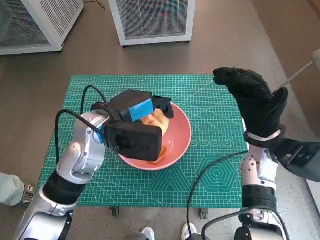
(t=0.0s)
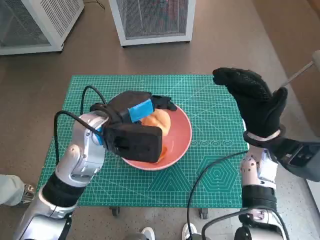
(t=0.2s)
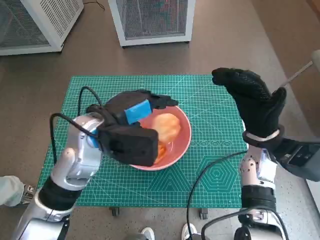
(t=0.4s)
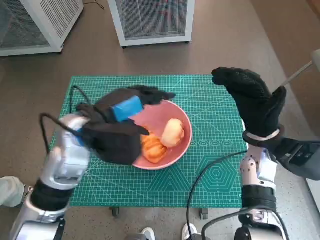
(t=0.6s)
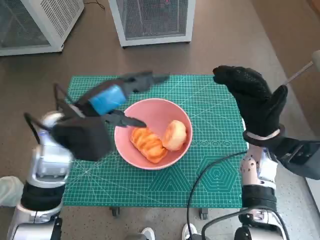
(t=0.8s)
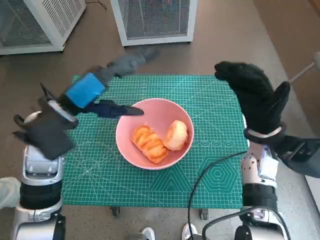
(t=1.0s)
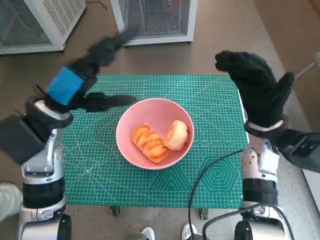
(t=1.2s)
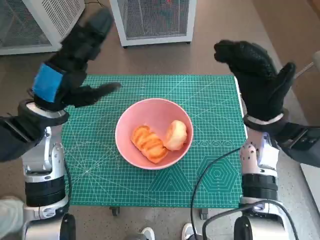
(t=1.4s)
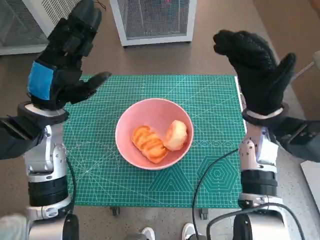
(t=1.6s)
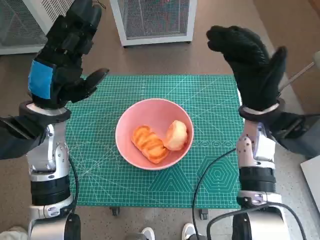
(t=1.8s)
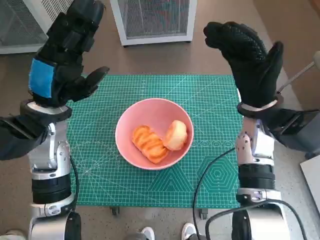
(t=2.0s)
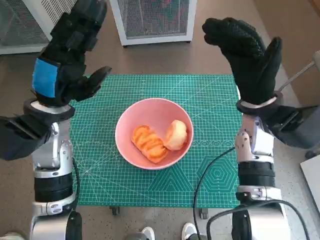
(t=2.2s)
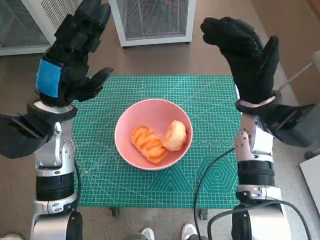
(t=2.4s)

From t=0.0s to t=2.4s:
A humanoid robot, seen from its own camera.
Task of the whole recording: Push the bowl into the center of the table and put the bread into the bowl.
From t=0.0s to t=1.2s: The left hand travels to the left by roughly 5 cm.
From t=1.2s to t=2.4s: The right hand ends up roughly 5 cm from where it was.

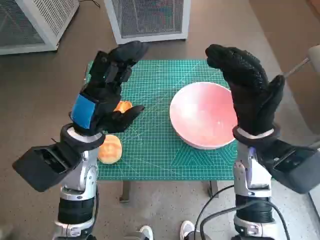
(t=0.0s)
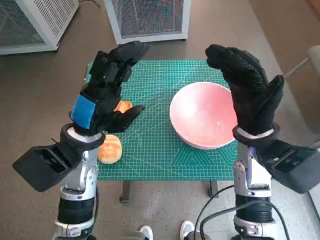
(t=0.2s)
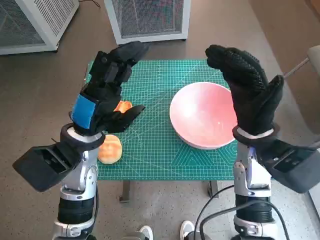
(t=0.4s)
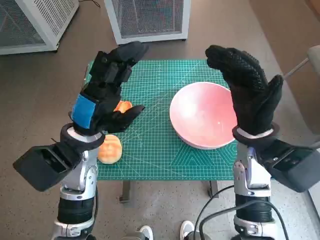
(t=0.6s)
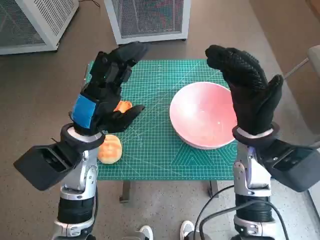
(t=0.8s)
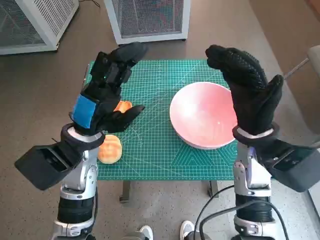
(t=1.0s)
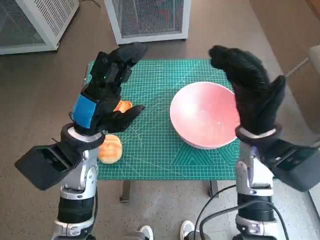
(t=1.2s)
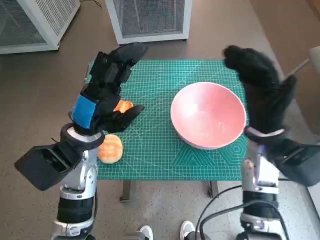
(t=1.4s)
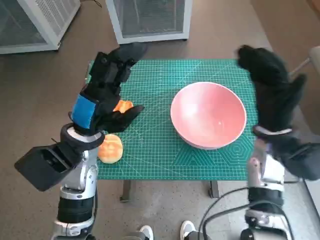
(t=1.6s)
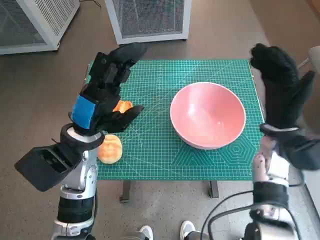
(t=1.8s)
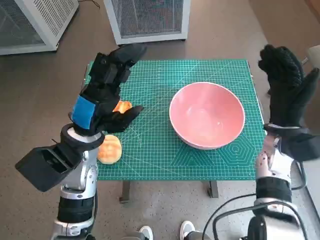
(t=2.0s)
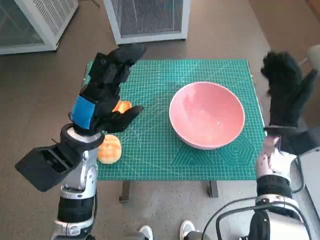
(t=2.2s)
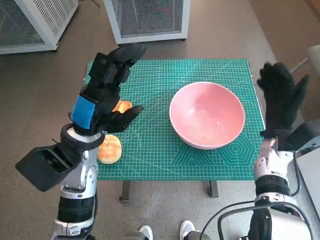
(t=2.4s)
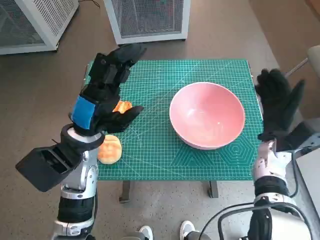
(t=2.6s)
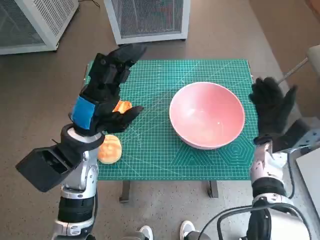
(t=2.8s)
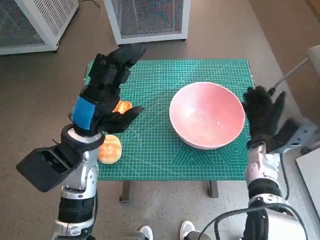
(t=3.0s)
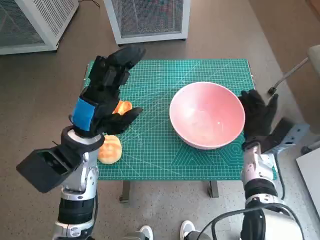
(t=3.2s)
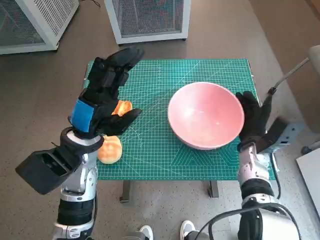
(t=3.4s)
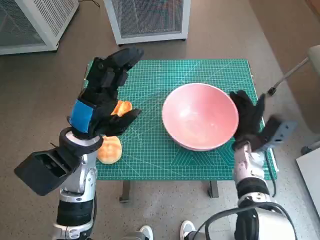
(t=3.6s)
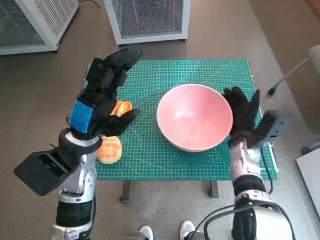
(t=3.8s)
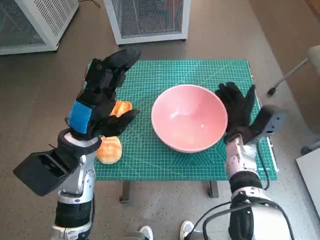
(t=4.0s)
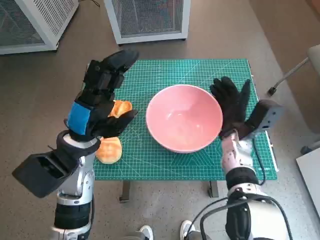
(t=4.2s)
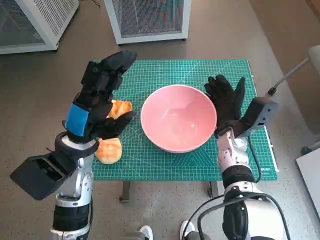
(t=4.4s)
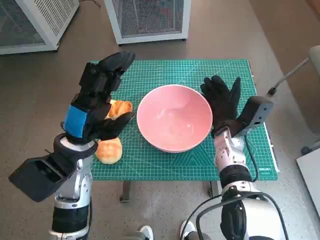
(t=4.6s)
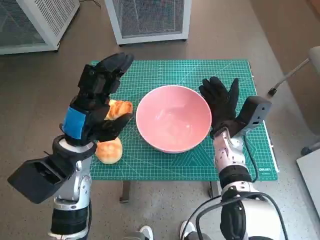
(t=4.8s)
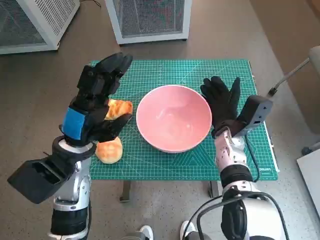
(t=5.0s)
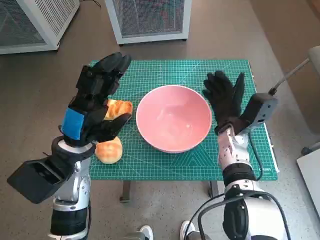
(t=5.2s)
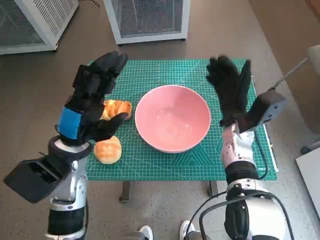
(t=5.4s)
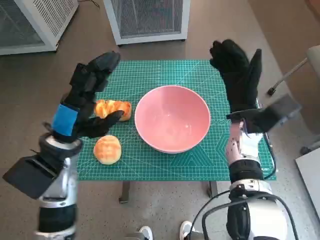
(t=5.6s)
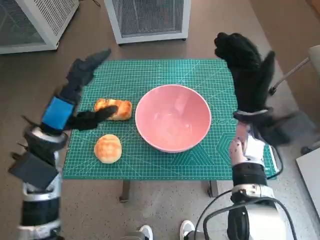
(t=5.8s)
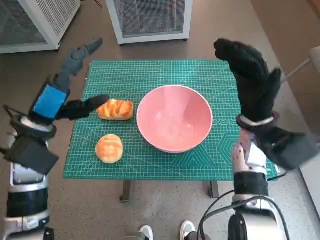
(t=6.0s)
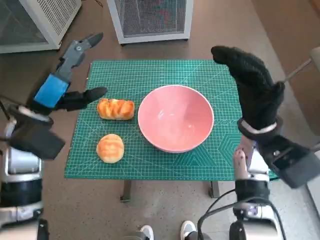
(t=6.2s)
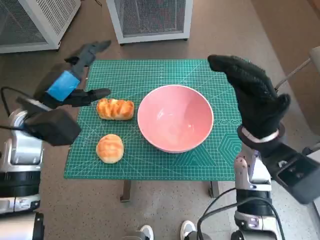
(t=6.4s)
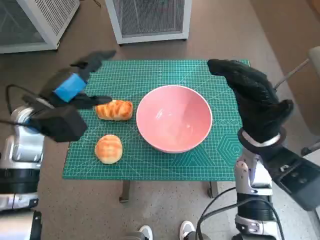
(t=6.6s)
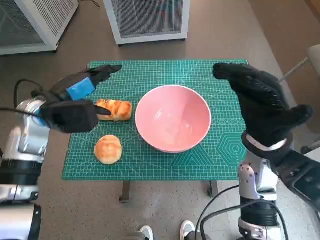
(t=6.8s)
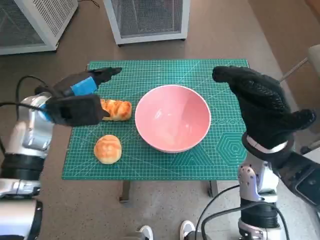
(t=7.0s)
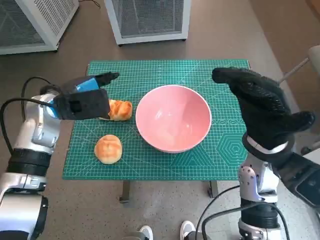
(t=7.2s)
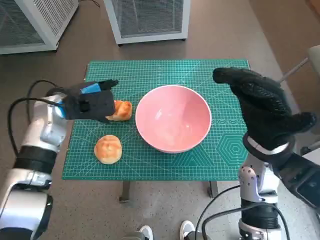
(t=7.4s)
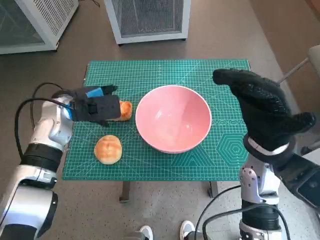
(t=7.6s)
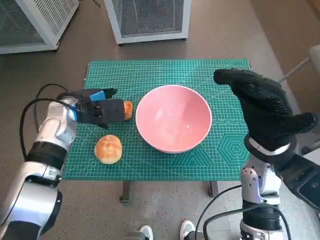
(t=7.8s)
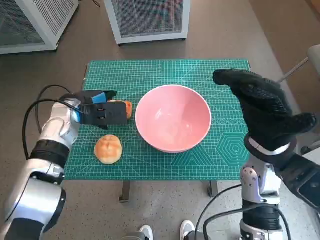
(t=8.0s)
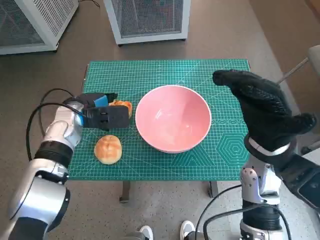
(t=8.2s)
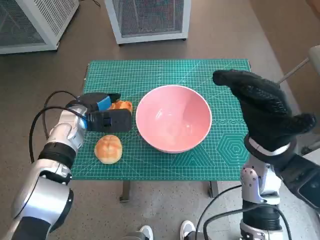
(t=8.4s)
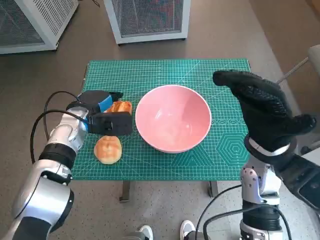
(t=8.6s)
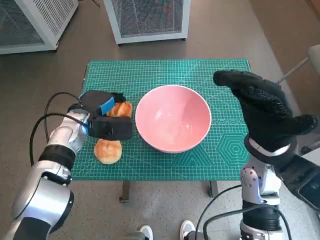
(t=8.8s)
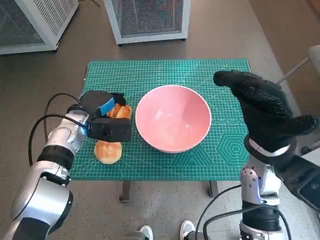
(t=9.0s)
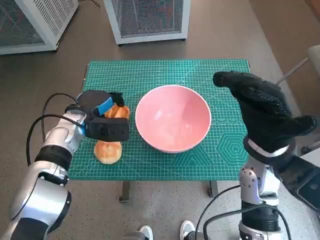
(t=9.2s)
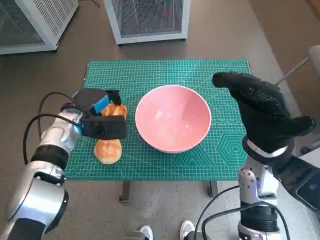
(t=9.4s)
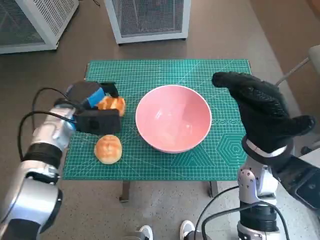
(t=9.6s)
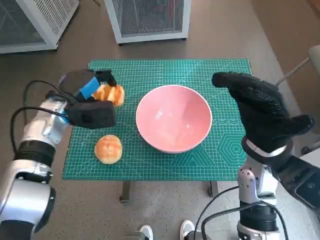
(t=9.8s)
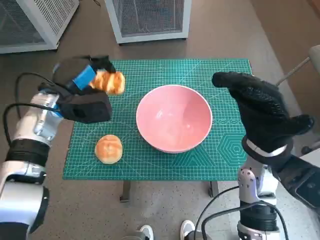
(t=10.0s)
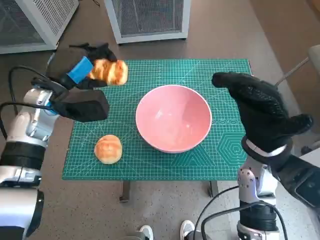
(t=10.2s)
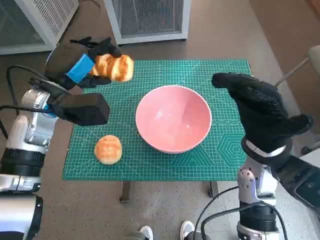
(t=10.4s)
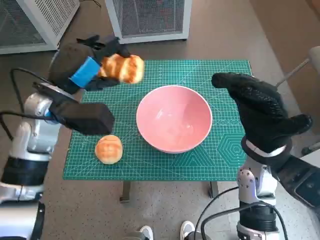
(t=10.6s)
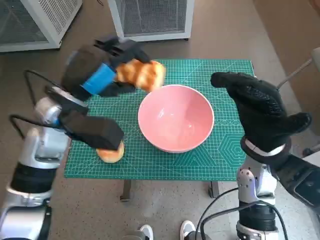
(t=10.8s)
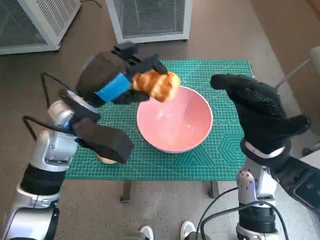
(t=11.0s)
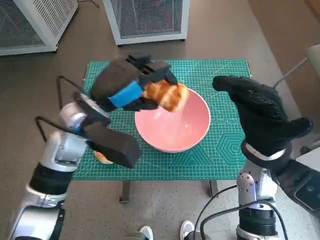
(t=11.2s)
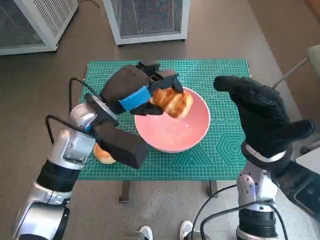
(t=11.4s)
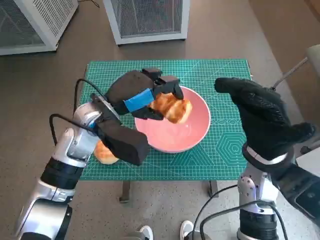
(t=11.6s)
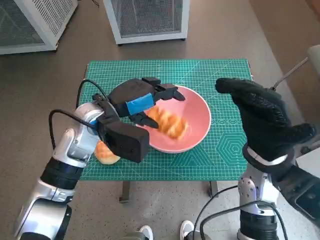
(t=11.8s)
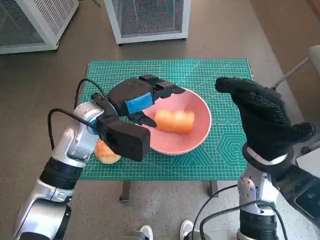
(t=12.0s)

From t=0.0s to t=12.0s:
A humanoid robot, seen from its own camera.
Task of the whole recording: Push the bowl into the center of the table and put the bread into the bowl.
Step, from t=0.0s to t=5.2s: Move the pink bowl to the center of table with right hand.
Step, from t=5.4s to t=8.8s: Grasp the long bread with left hand.
From t=1.6s to t=3.0s: The right hand moves downward, roughly 10 cm.
From t=3.0s to t=4.4s: The right hand heads to the left, covering some 5 cm.
From t=4.4s to t=6.0s: The left hand goes roughly 5 cm to the left. Meanwhile the right hand heads upward, covering some 10 cm.
From t=6.0s to t=7.6s: The left hand shifts about 10 cm forward. The right hand changes place by some 5 cm.
From t=7.6s to t=9.0s: The left hand heads downward, covering approximately 5 cm.
From t=9.0s to t=10.4s: The left hand shifts about 10 cm upward.
From t=10.4s to t=12.0s: The left hand is displaced to the right by some 10 cm.

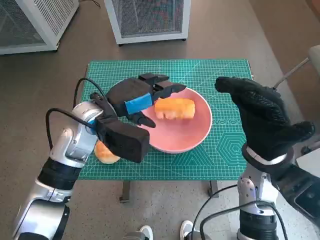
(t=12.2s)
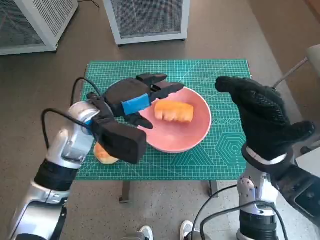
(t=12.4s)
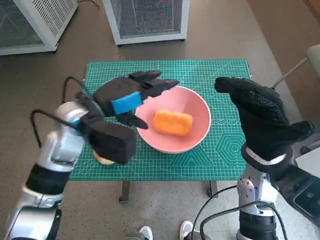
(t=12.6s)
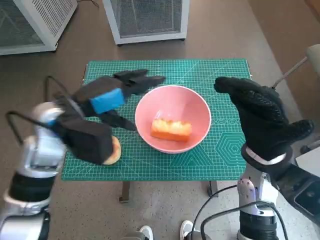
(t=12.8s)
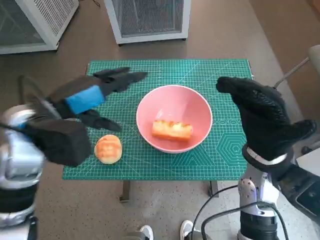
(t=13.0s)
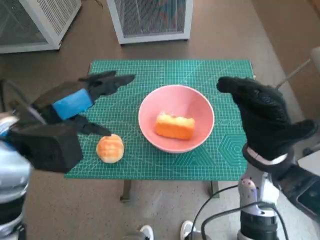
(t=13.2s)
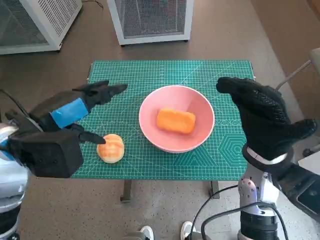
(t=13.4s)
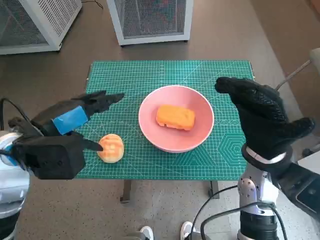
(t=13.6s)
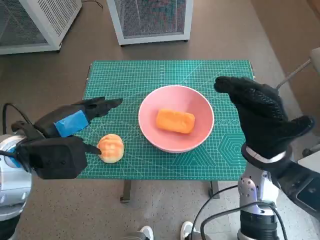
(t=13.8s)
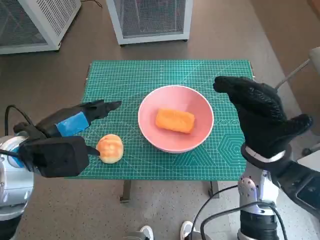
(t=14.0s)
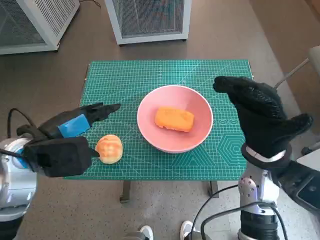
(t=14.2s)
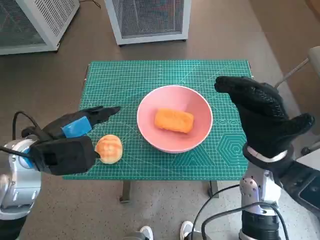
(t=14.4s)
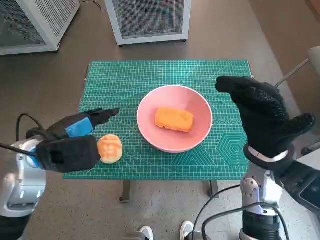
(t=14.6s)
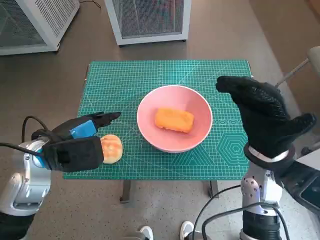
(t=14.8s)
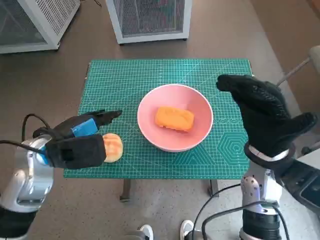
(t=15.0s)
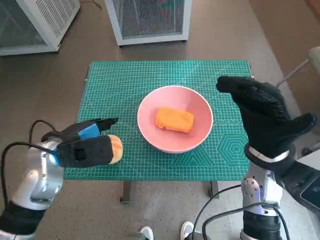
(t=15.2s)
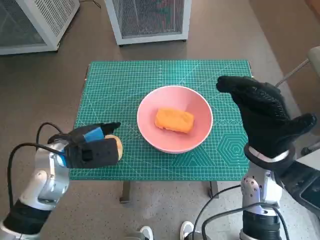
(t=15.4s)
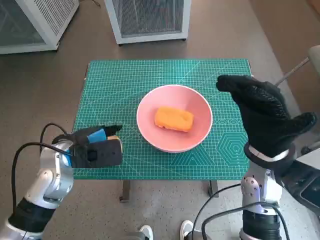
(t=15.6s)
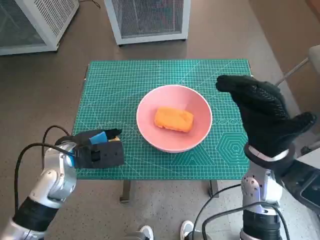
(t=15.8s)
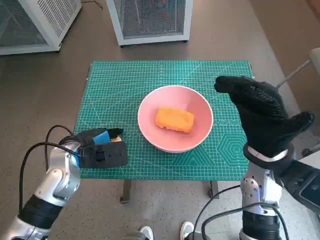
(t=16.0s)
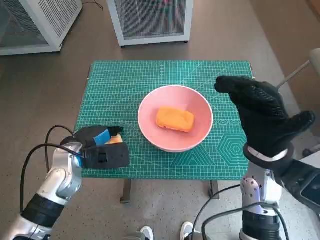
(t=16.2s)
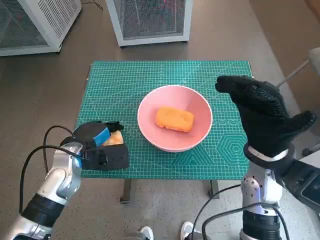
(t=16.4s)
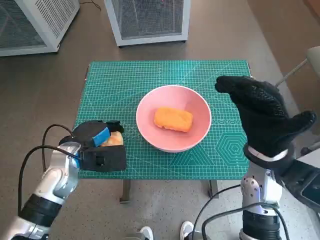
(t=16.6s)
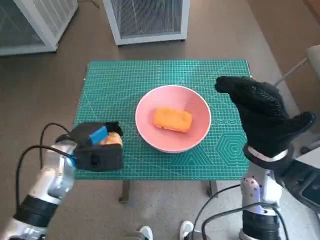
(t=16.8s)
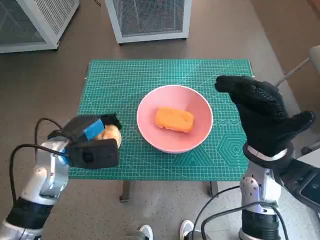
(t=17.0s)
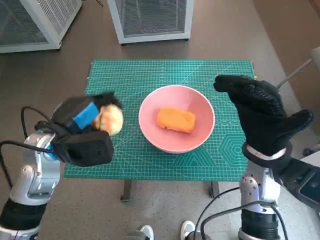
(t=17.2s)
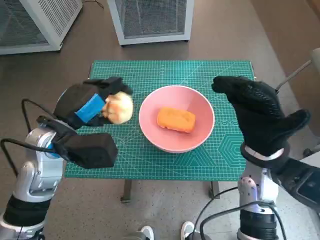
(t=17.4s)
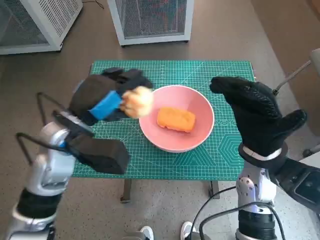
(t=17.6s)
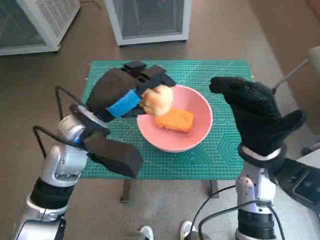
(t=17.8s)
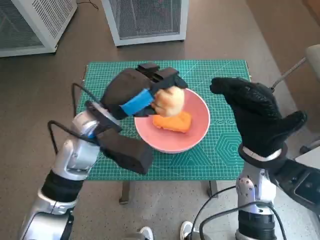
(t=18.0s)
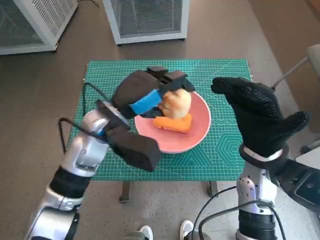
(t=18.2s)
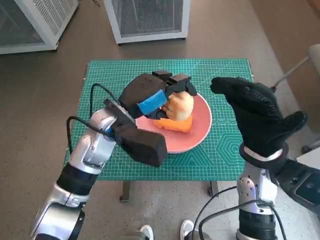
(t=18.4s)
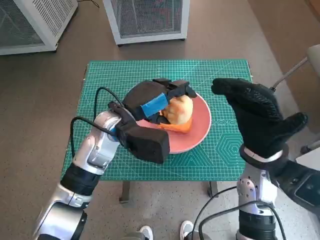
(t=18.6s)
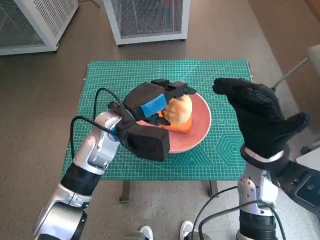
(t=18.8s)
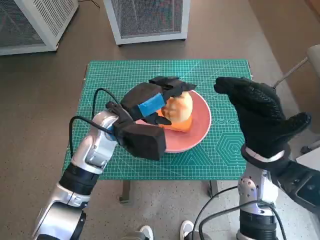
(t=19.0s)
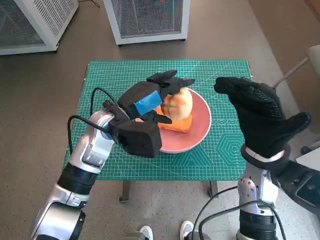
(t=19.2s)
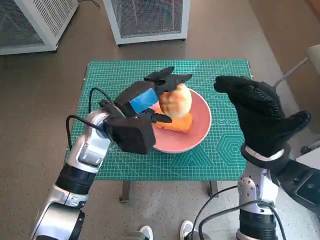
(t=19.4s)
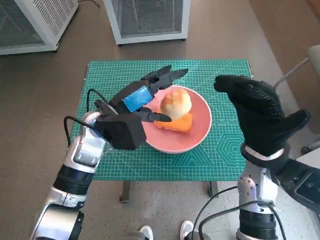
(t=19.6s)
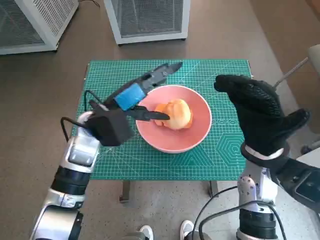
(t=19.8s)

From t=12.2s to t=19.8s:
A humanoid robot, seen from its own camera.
Task of the whole recording: Push the bowl into the center of the table and put the bread into the bowl.
Step, from t=12.4s to t=16.0s: Grasp the round bread with left hand.
Step, from t=16.2s to t=19.6s: Place the round bread in pink bowl with left hand.
From t=12.2s to t=13.8s: The left hand heads to the left and backward, covering approximately 10 cm.
From t=13.8s to t=15.2s: The left hand goes about 5 cm downward.
From t=15.2s to t=16.8s: The hands stay close to where they were, moving slightly.
From t=16.8s to t=18.2s: The left hand shifts roughly 15 cm to the right and upward.
